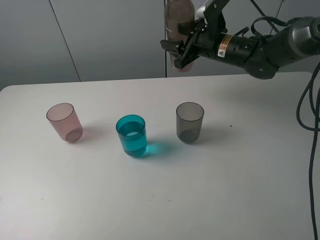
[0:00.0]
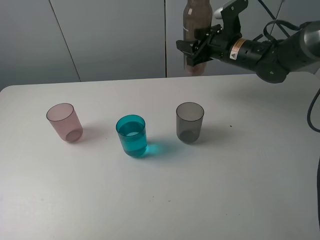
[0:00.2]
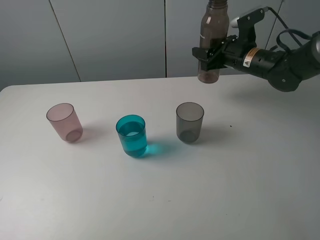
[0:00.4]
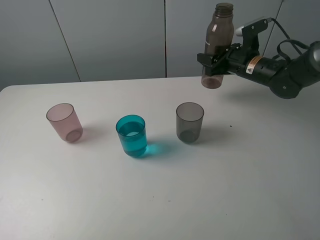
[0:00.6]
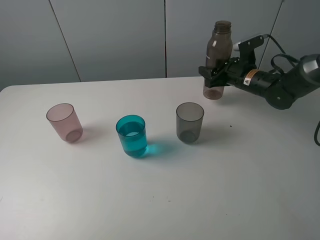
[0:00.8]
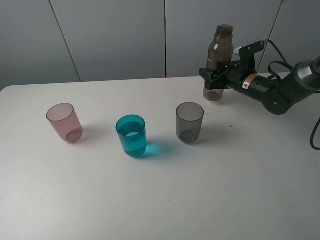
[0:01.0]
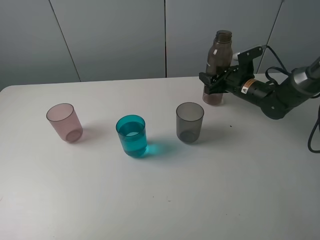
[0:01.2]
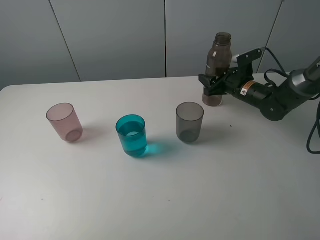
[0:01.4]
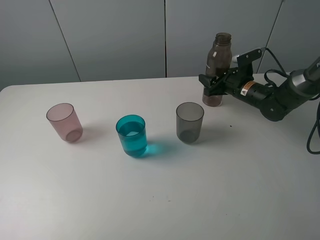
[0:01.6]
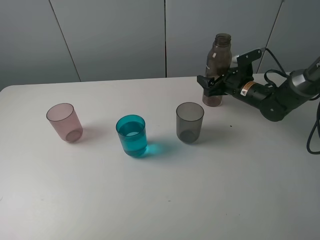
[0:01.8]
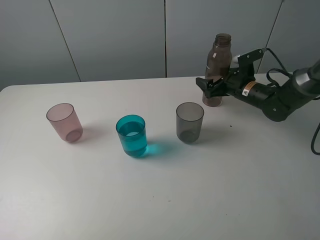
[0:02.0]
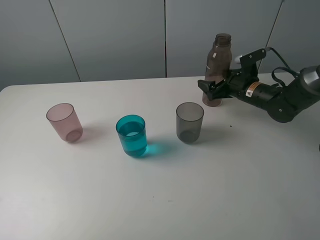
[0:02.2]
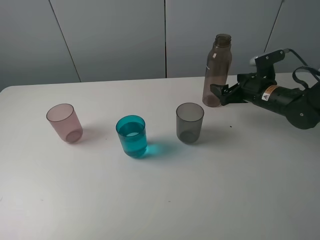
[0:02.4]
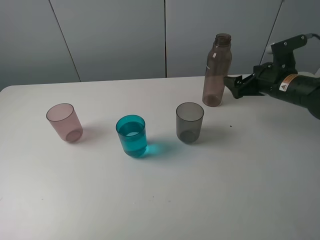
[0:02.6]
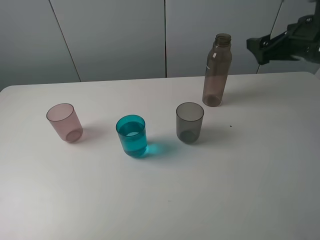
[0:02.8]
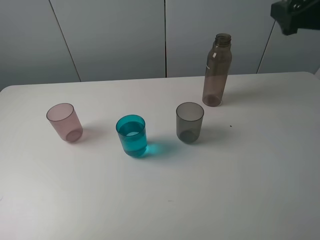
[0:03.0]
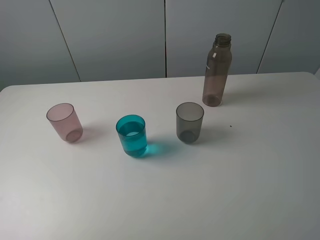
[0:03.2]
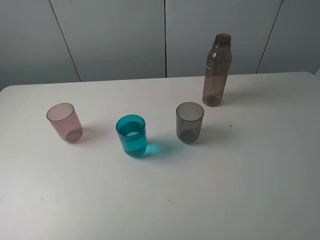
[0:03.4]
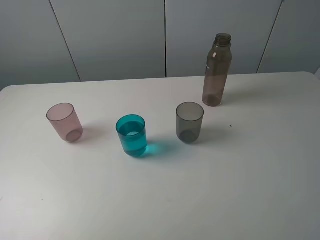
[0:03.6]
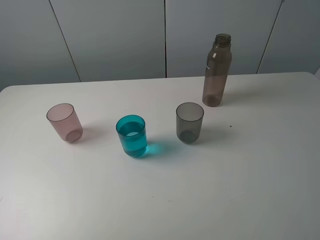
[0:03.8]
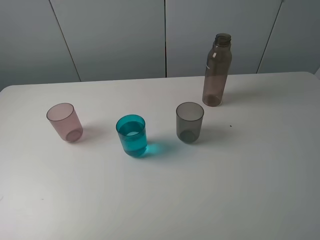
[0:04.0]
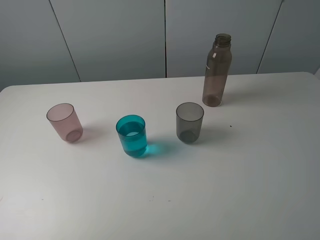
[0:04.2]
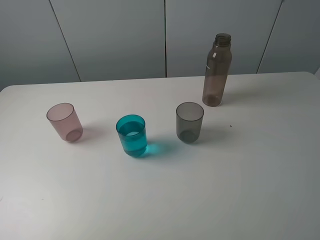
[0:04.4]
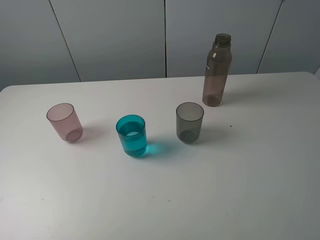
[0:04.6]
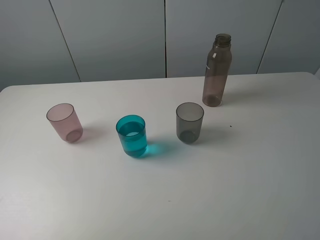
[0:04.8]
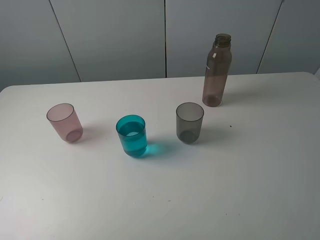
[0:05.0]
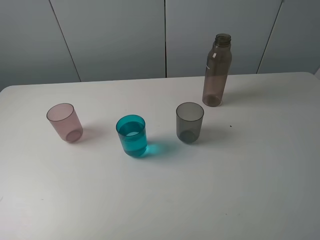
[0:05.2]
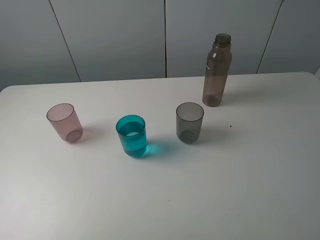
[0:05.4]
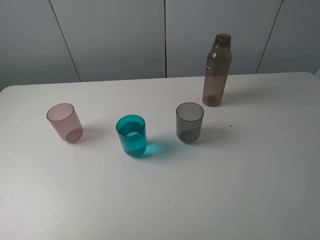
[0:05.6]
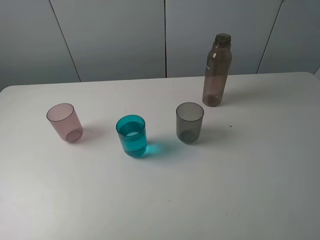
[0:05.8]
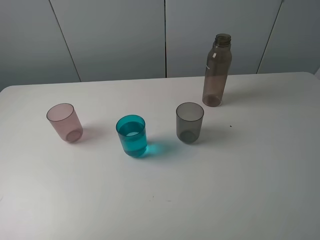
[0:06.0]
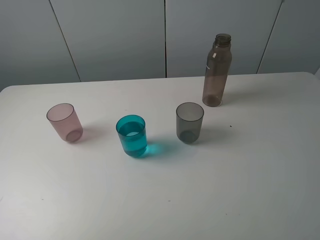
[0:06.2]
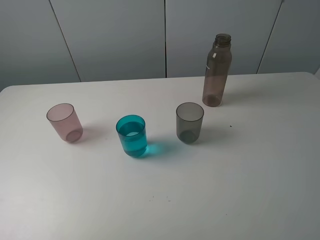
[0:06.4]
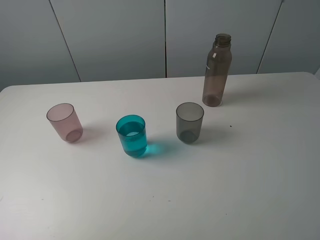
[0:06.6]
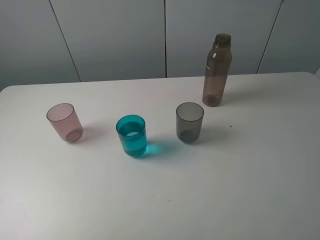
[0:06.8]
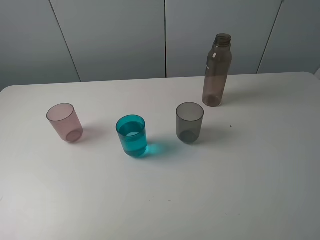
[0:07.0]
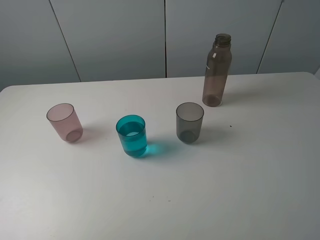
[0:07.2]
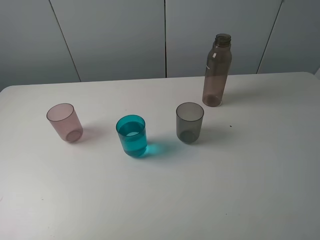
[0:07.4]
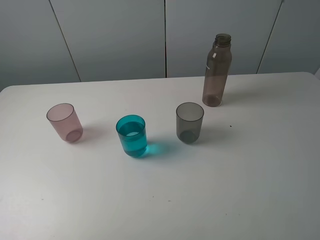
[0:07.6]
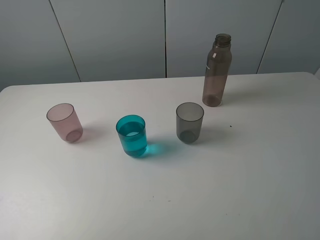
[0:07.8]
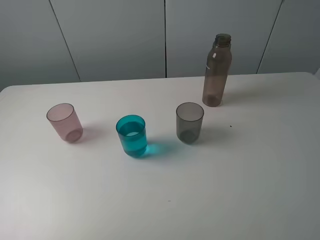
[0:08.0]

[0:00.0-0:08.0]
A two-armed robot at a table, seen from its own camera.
Task of the whole recording: pick up the bottle filled with water and pour water into the middle cup of the three cups.
Step, 0:00.0 to 0:02.6: Place the brown bottle with the right gripper.
0:00.0 to 0:01.6: The right gripper is displaced downward and to the right by about 15 cm.
0:01.6 to 0:03.2: The right gripper goes some 35 cm upward and backward, and opens its fingers.
0:06.4 to 0:08.0: Both grippers stay put.
